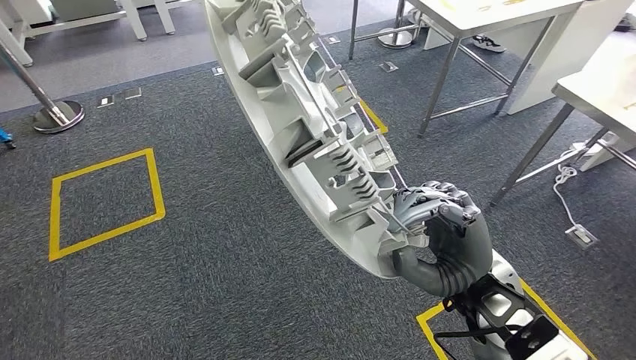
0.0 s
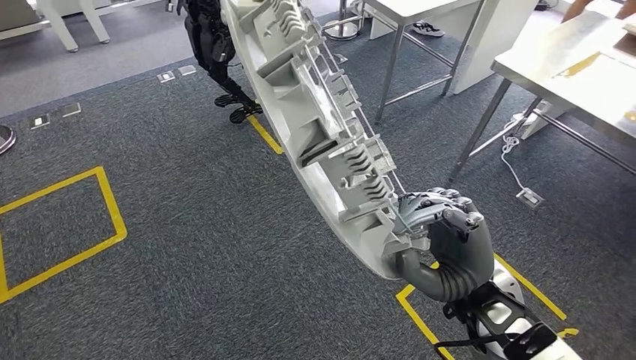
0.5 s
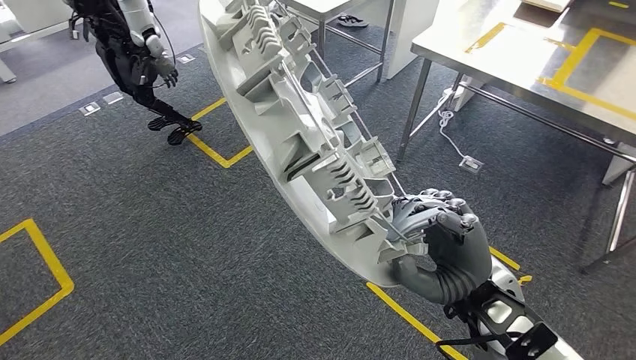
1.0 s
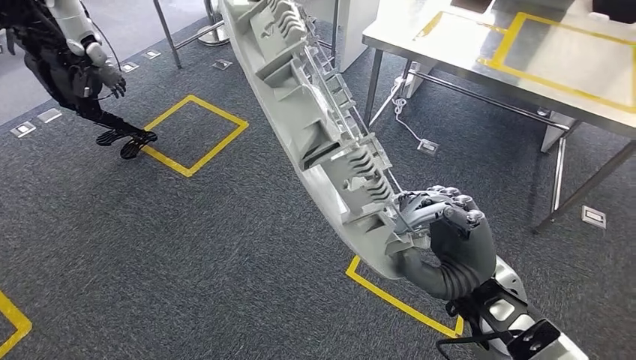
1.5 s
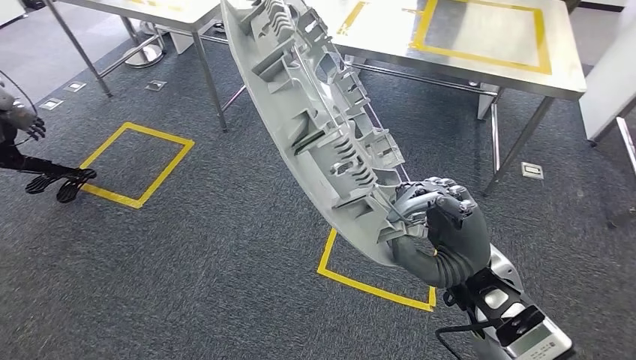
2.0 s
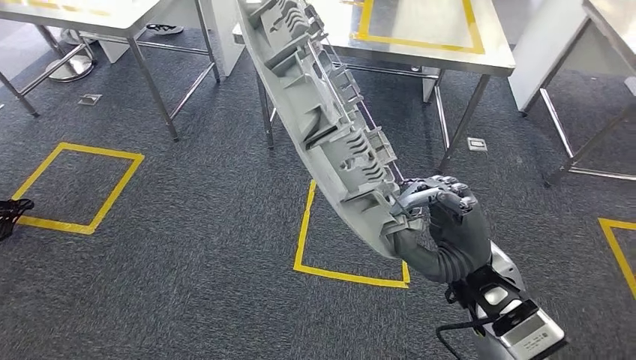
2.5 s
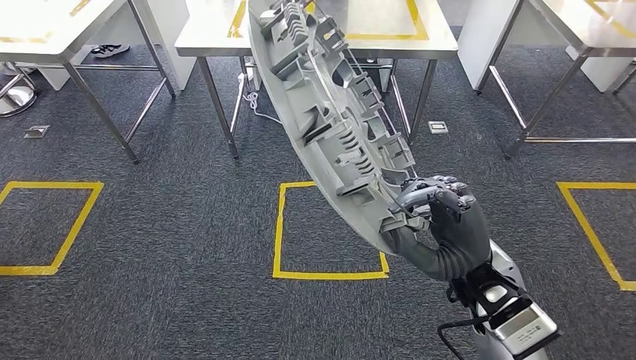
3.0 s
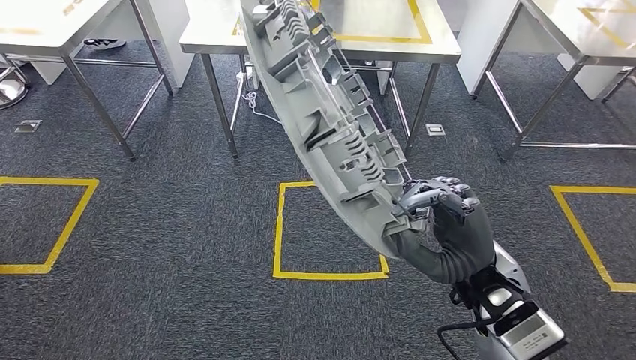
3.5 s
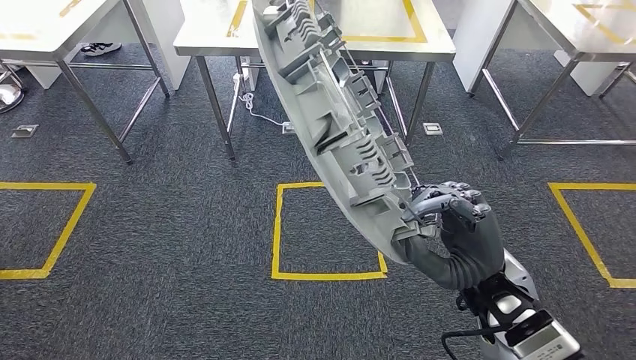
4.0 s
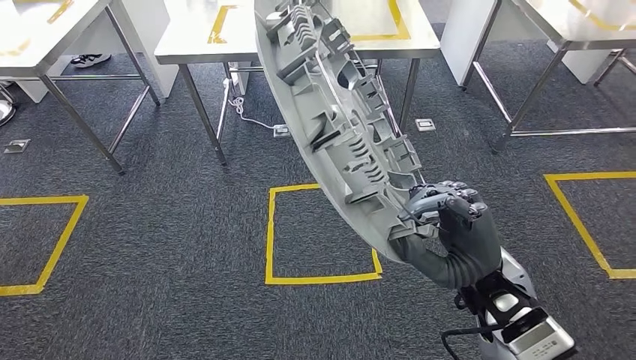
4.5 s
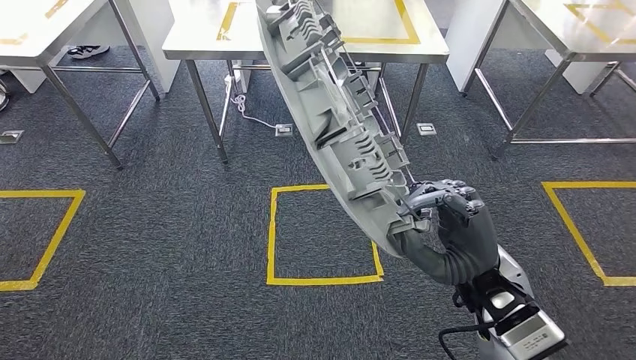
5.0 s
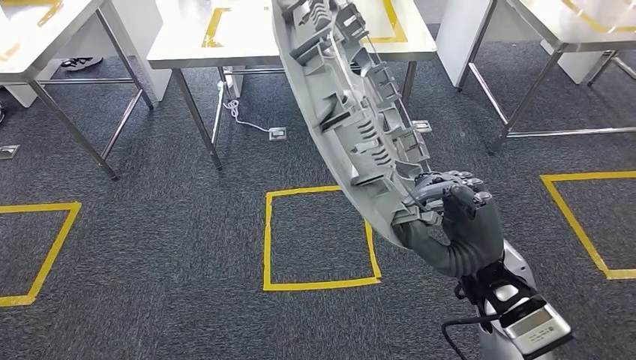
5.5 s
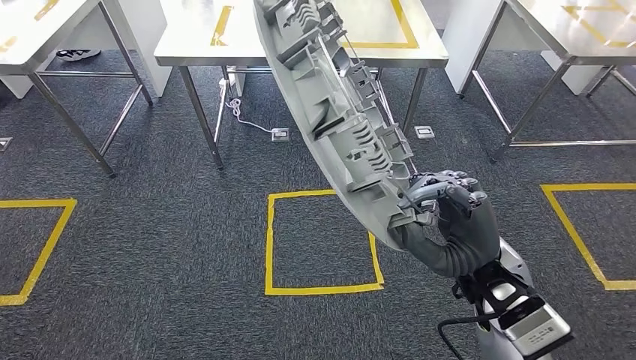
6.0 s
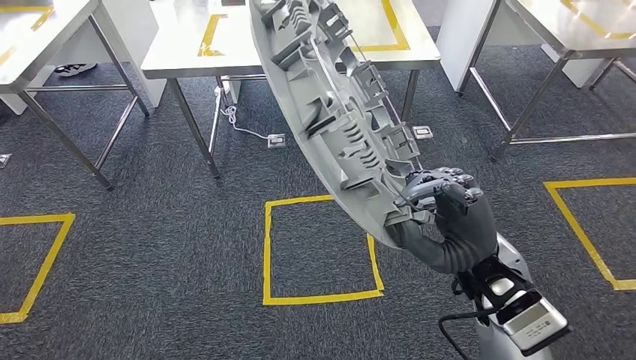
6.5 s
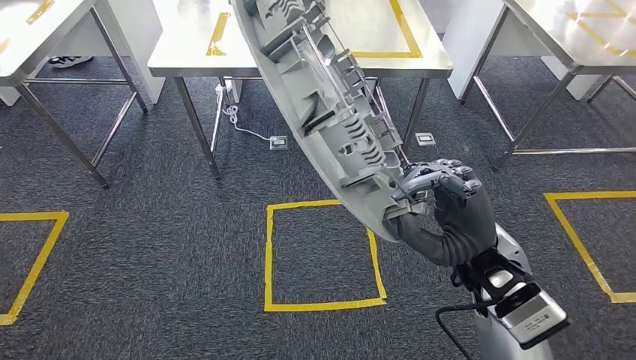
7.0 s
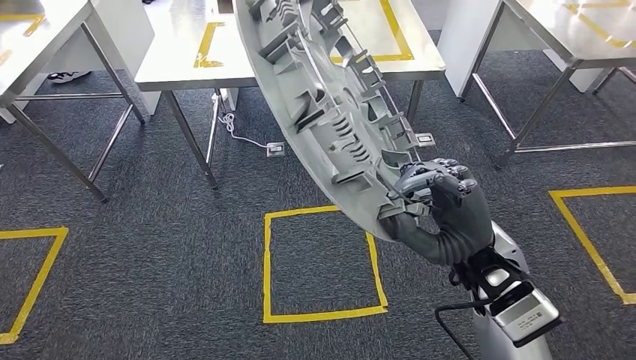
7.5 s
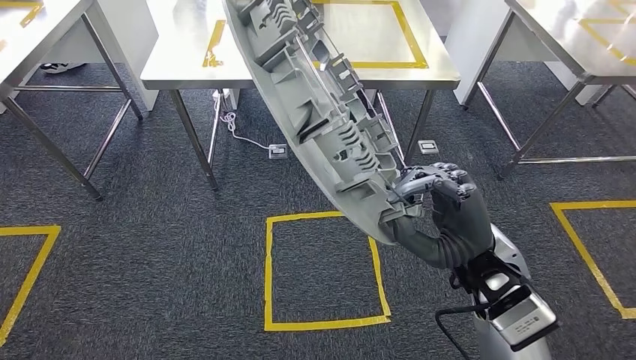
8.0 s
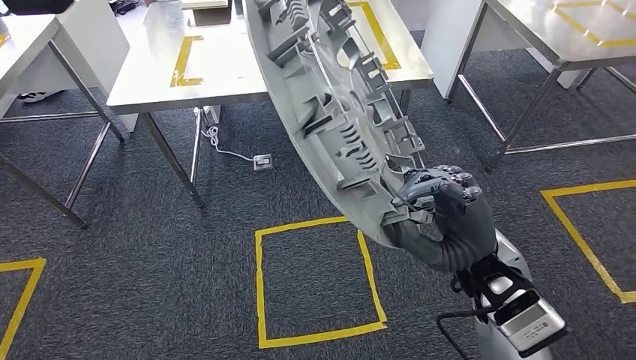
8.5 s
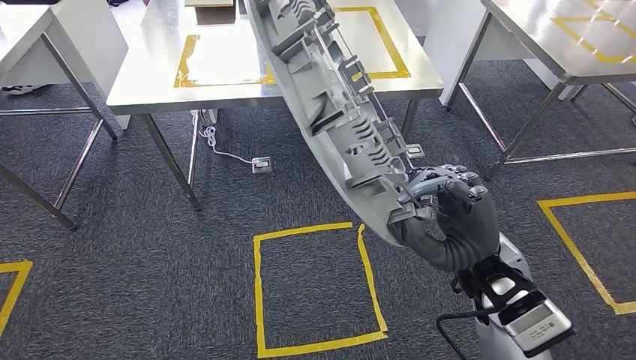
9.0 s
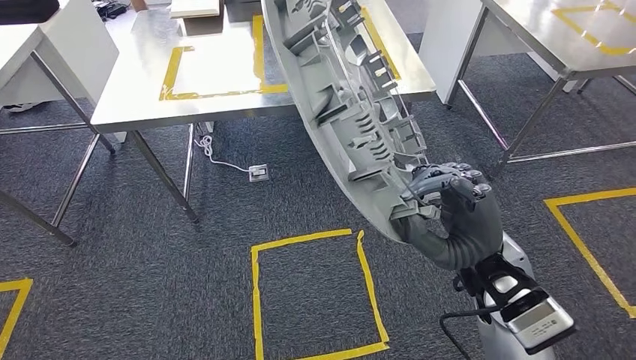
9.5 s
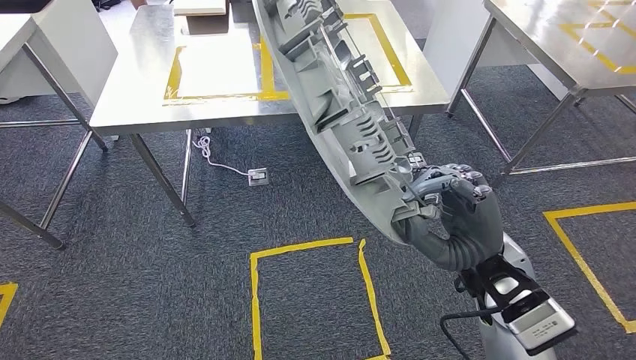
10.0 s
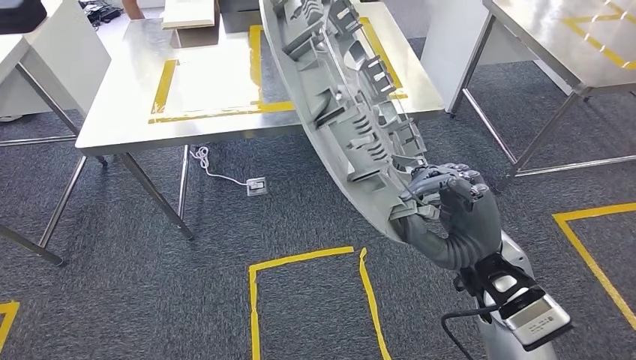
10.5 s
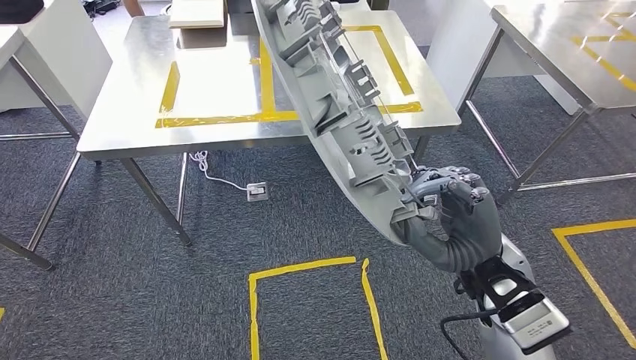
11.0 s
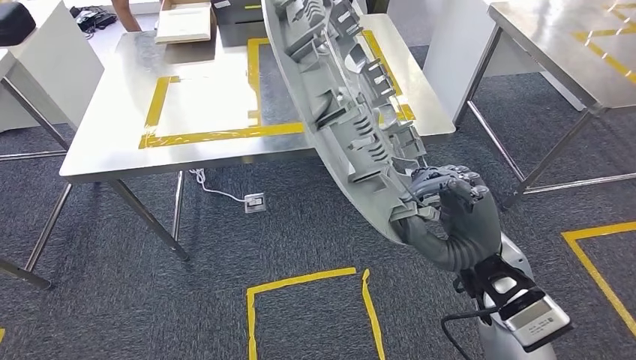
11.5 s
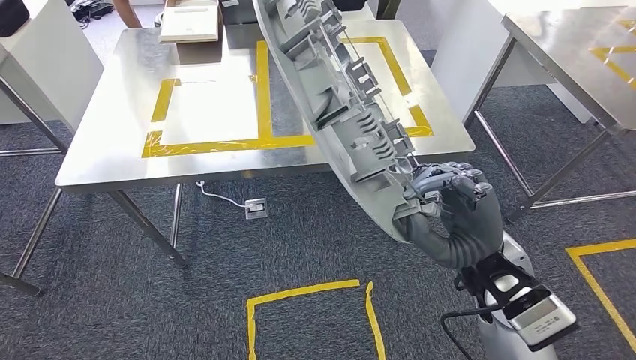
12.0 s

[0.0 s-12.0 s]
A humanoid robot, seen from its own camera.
Step, 0.0 to 11.5 s: Move the small component to the workbench.

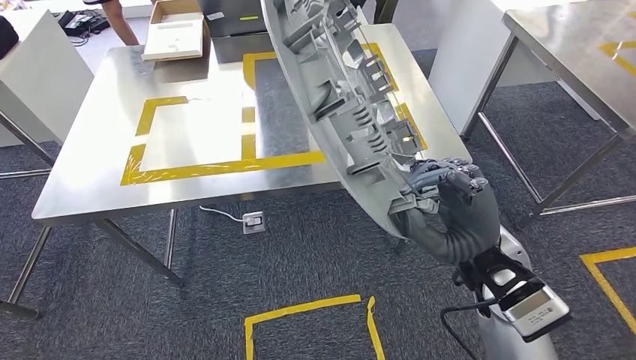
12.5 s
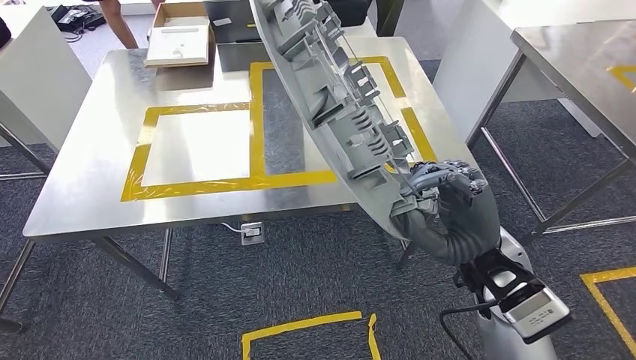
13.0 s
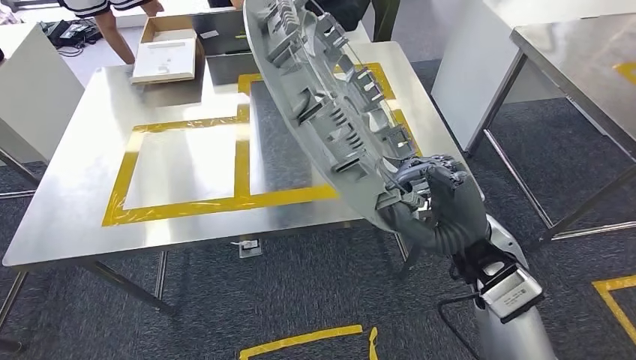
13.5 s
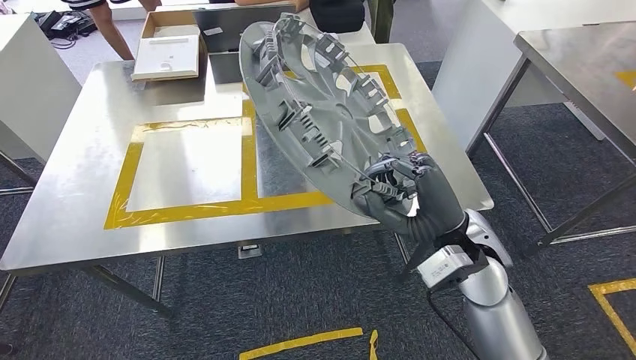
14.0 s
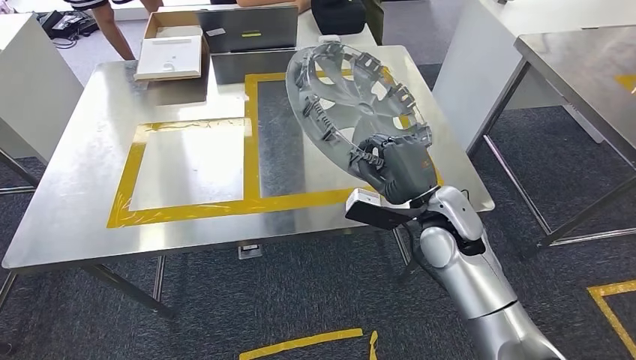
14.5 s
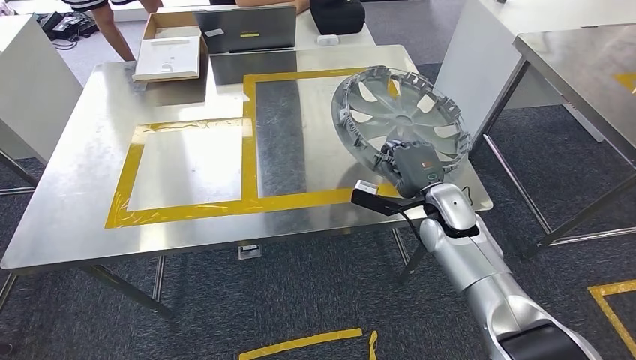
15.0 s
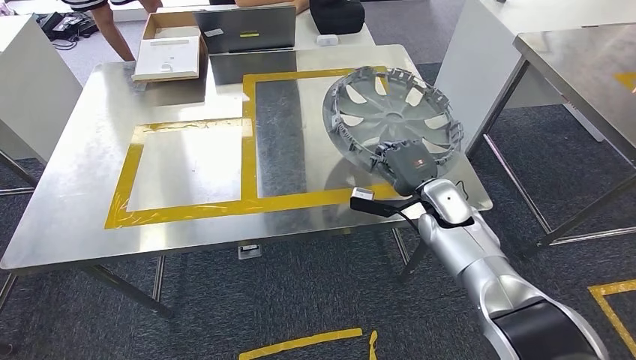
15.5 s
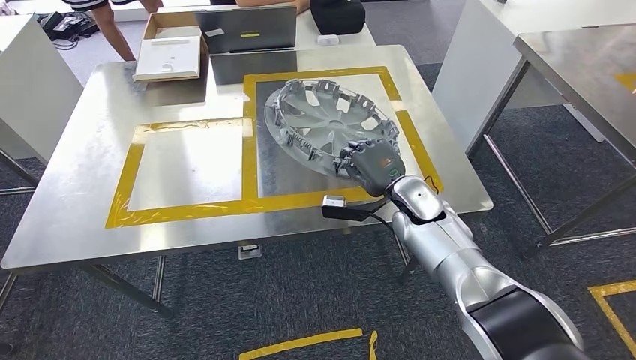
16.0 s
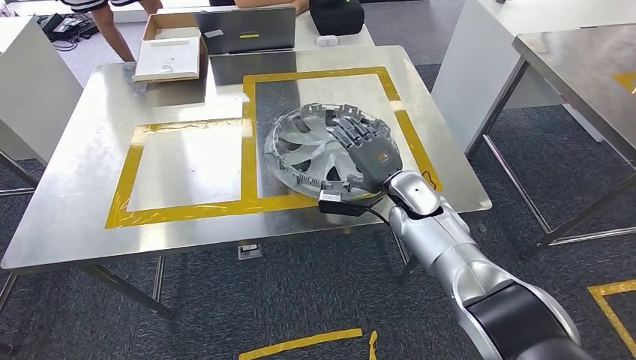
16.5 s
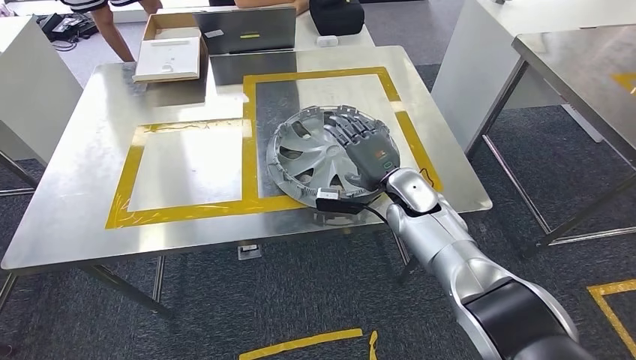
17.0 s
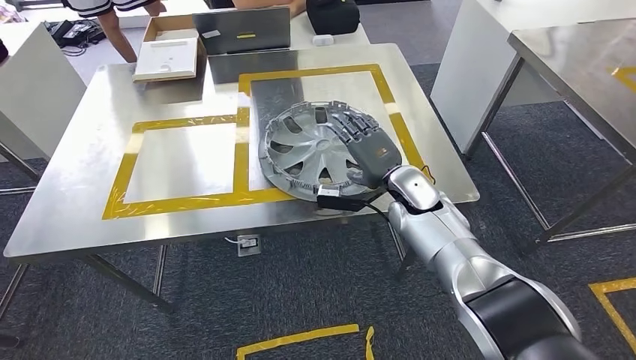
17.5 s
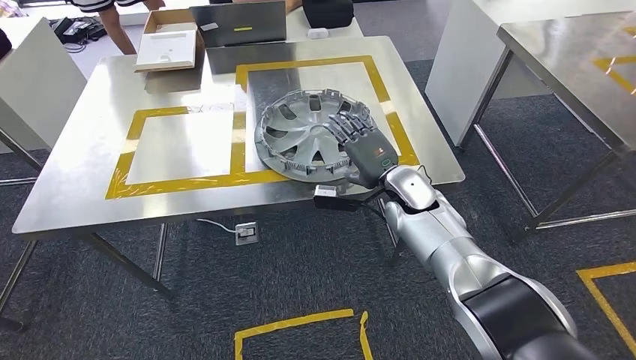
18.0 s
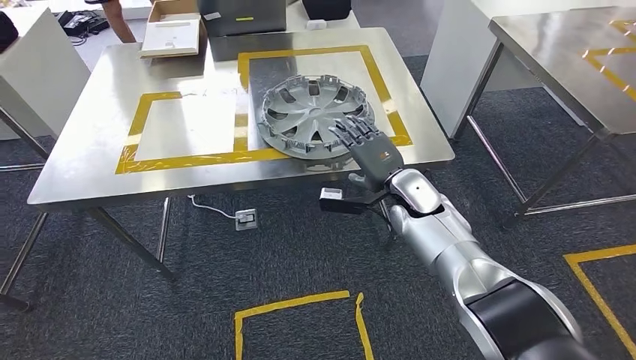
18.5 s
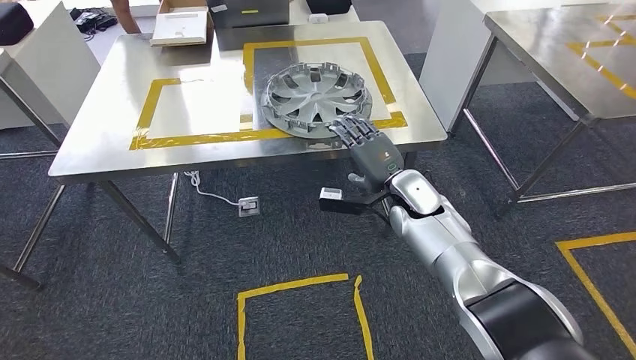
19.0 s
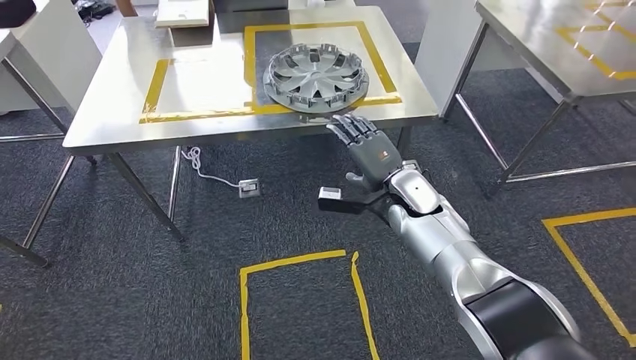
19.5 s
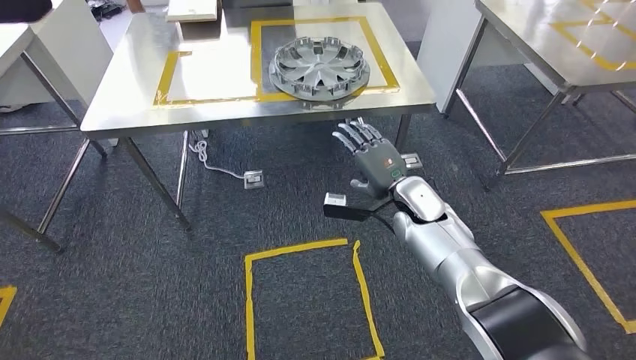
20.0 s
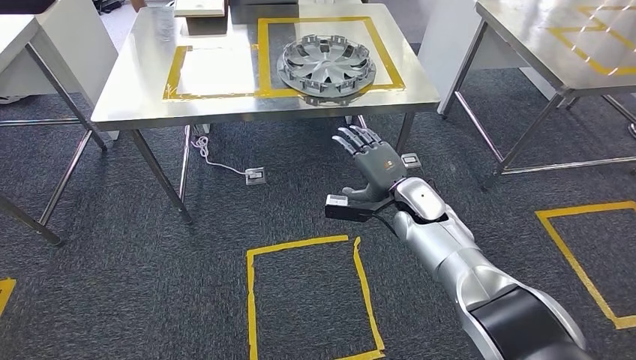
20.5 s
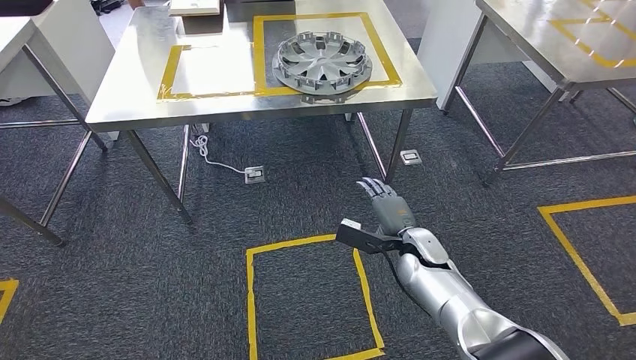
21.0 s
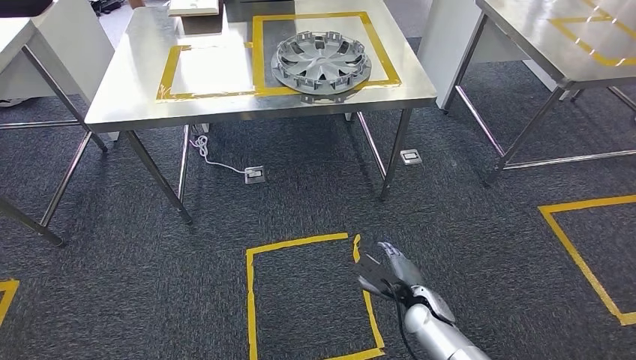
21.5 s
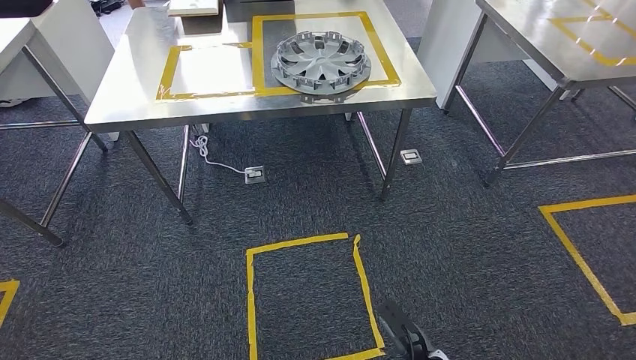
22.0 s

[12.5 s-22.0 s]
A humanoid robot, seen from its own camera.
Step, 12.5 to 17.0 s: Insert the small component into the corresponding slot on the workbench.
Step, 17.5 to 22.0 s: Return to the initial position at the workbench.
14.5 to 16.5 s: The right hand is displaced forward and downward by roughly 10 cm.
